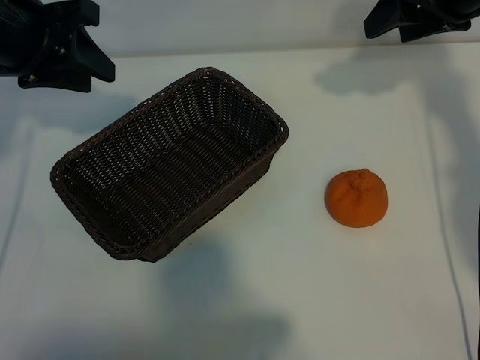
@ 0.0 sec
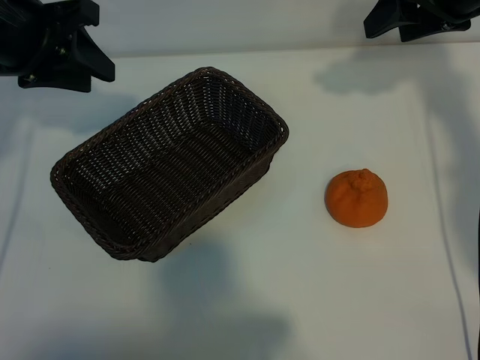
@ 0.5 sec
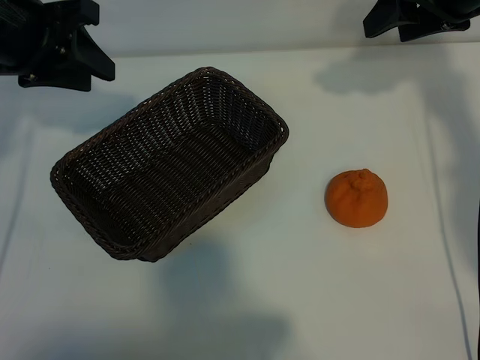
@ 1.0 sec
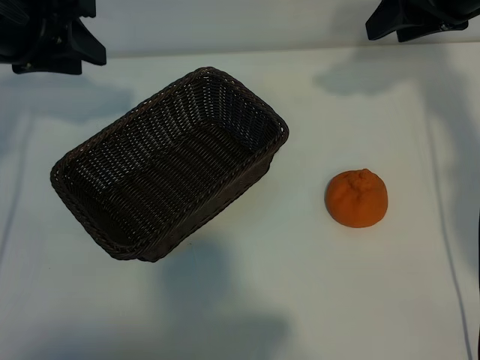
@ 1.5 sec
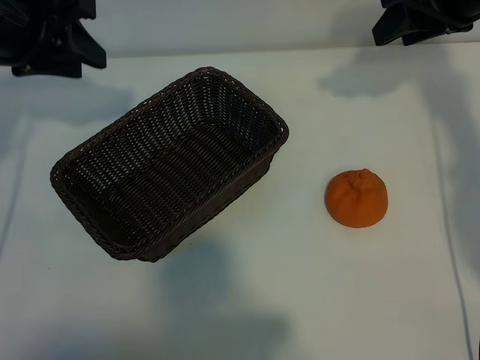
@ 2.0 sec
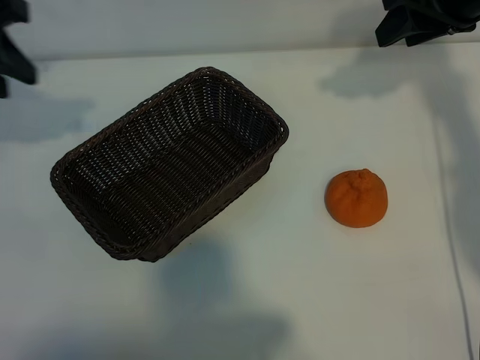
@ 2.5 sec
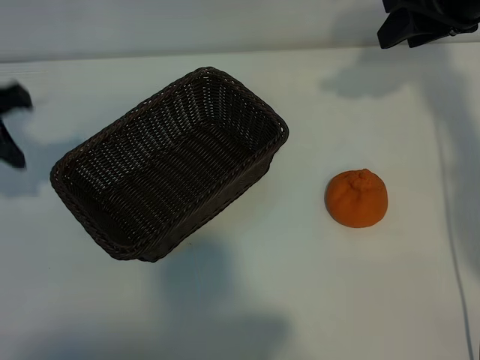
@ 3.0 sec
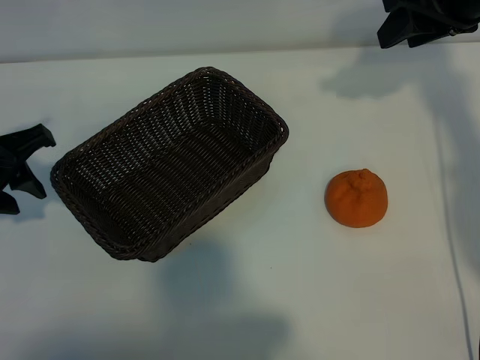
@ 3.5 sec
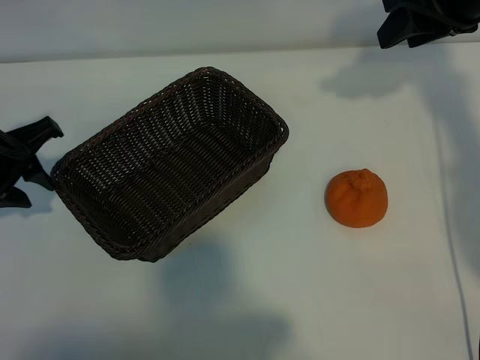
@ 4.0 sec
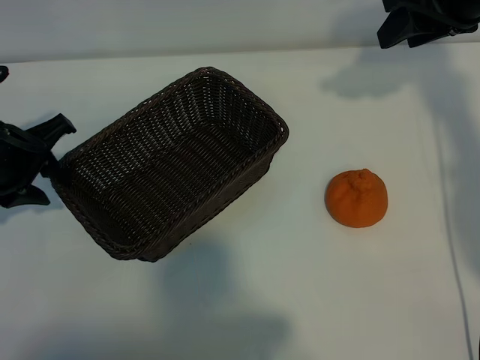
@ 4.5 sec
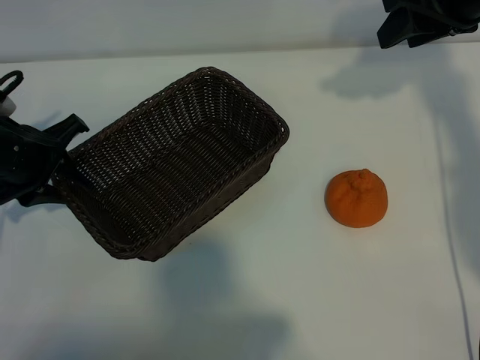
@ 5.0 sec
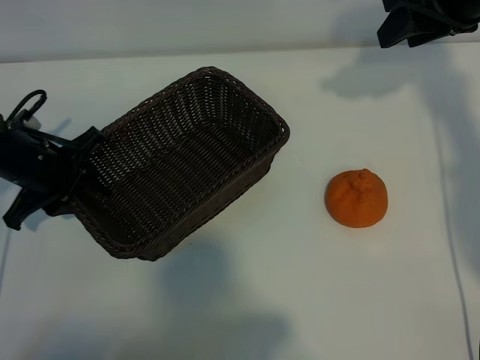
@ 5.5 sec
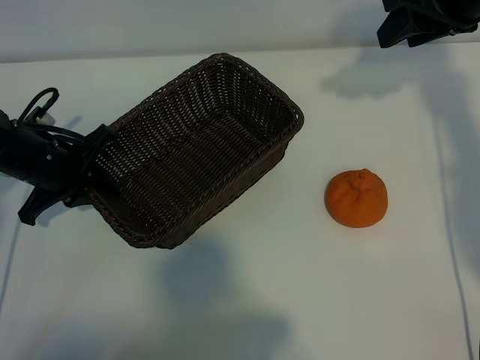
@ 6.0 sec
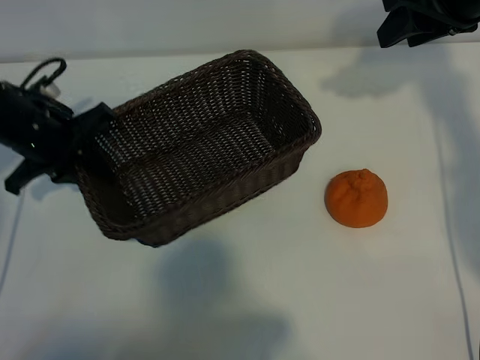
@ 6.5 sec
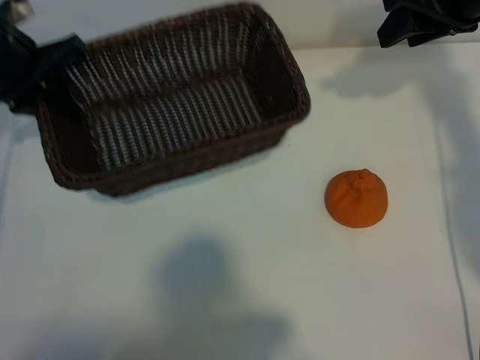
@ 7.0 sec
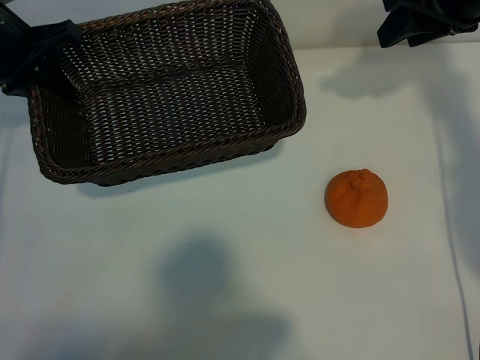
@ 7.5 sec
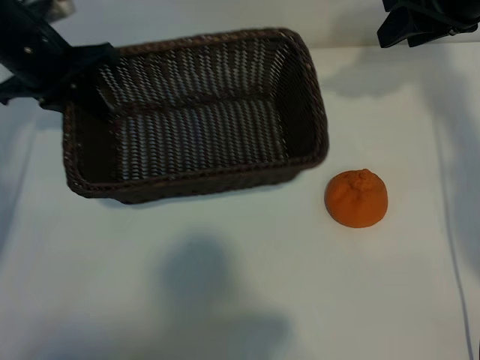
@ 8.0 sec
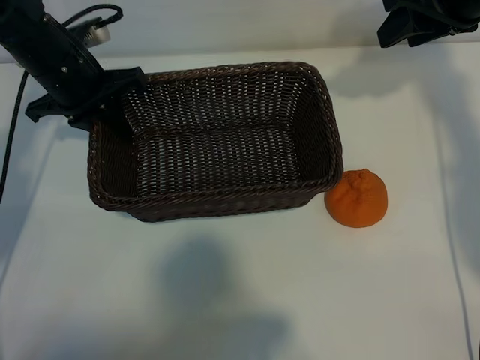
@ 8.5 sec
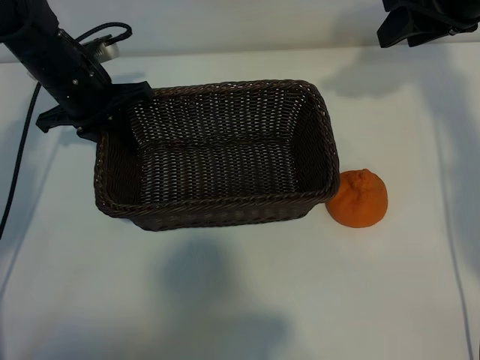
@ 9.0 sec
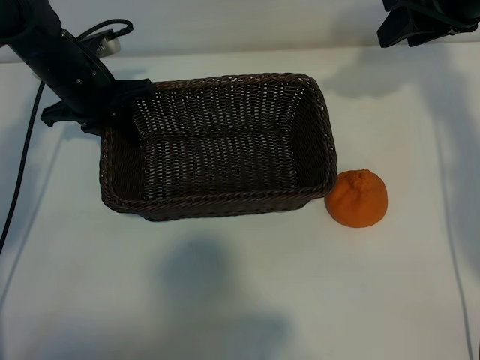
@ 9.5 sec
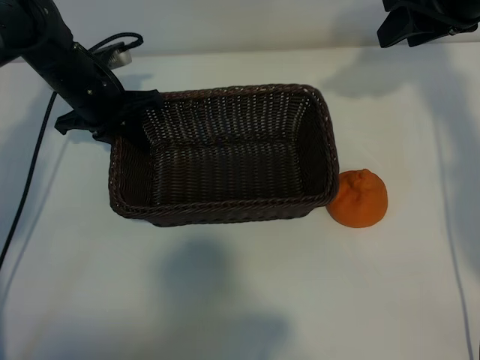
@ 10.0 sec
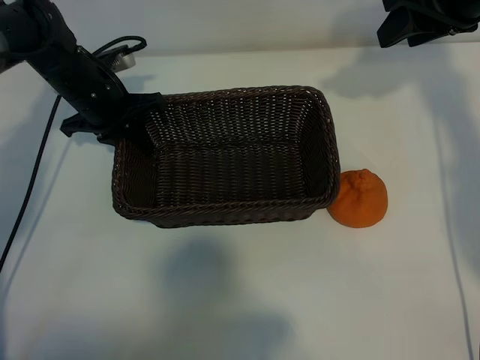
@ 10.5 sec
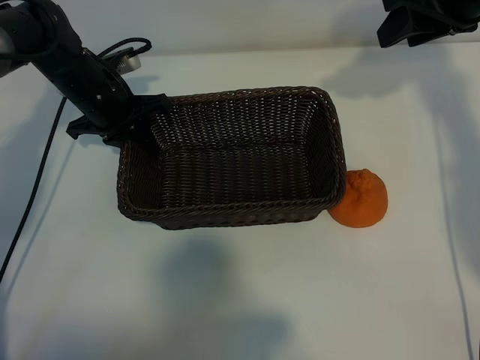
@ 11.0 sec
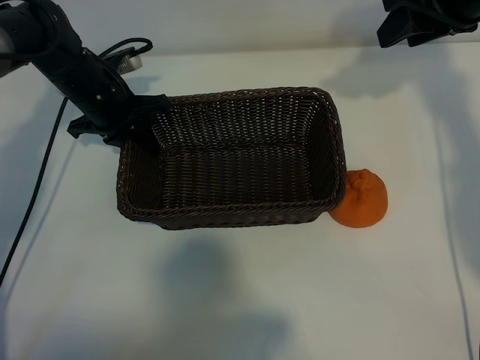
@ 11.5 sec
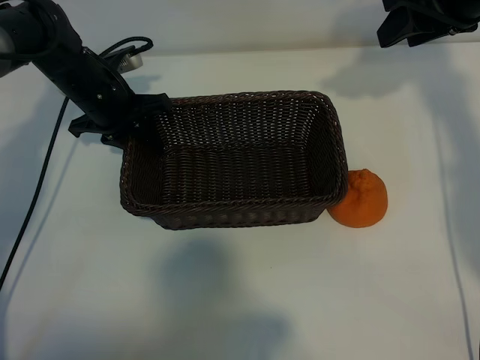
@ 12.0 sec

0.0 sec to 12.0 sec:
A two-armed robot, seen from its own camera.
Task of the whole recording: pick up the orange and put it into the basket.
Step, 1.5 sec to 5.5 sec: Grasp the basket with left gripper.
Step, 6.5 sec to 11.5 sec: Place the basket in the center of view with left gripper.

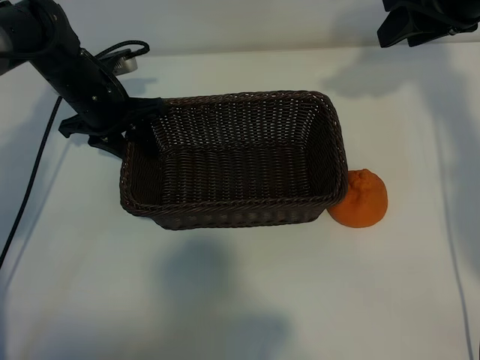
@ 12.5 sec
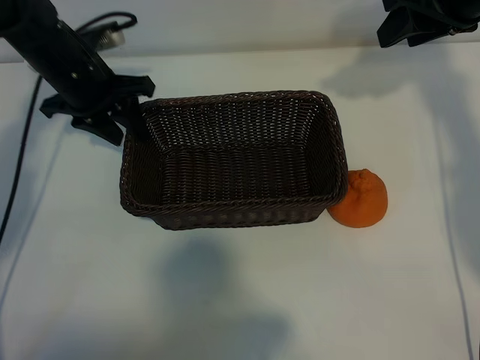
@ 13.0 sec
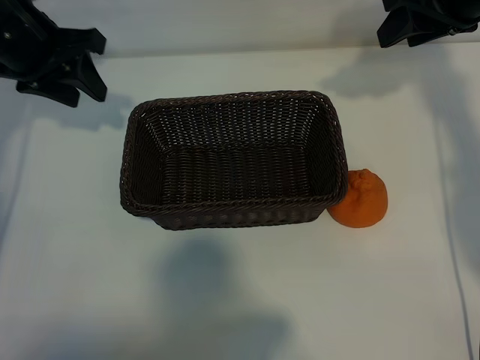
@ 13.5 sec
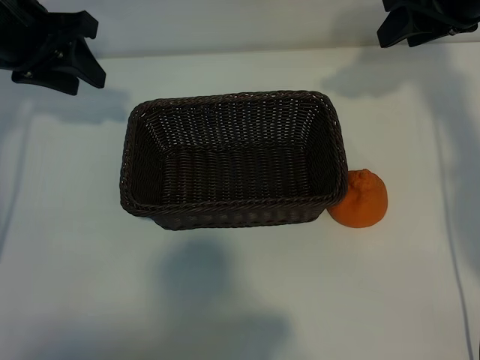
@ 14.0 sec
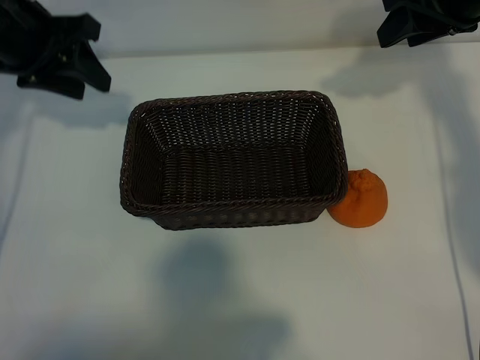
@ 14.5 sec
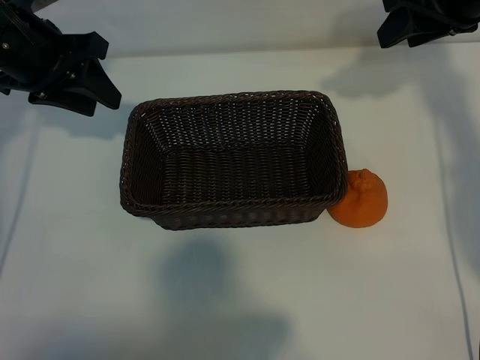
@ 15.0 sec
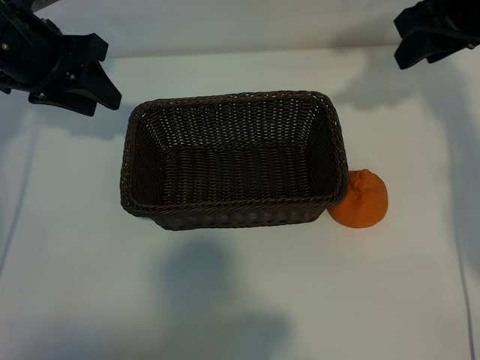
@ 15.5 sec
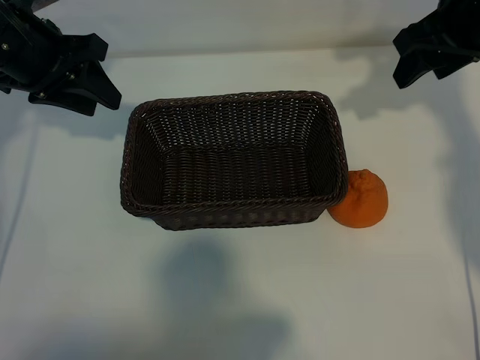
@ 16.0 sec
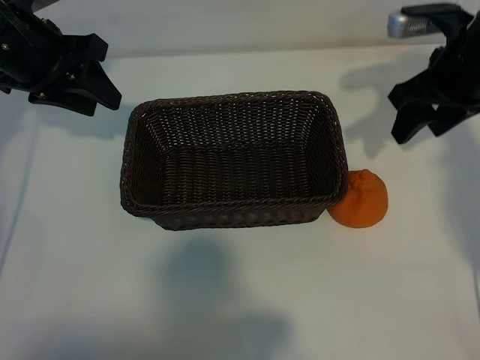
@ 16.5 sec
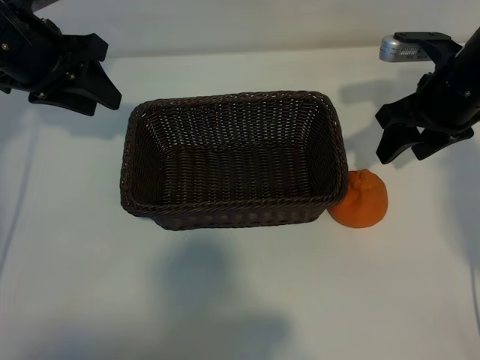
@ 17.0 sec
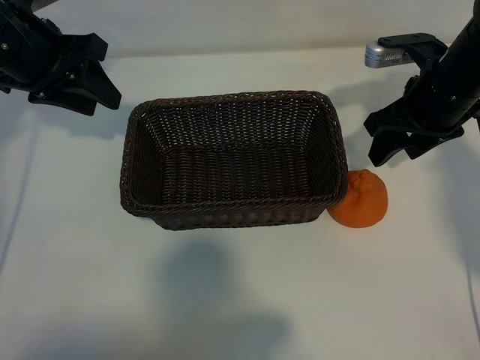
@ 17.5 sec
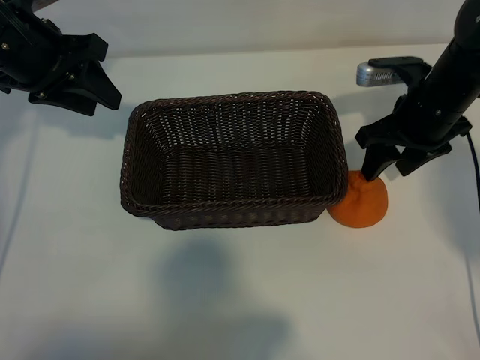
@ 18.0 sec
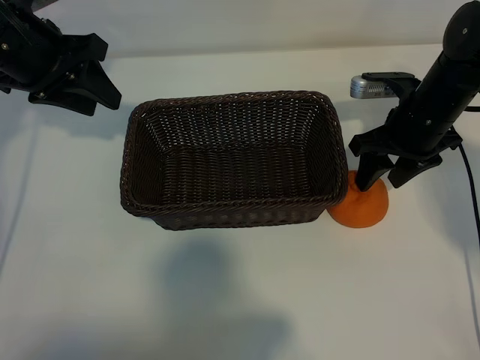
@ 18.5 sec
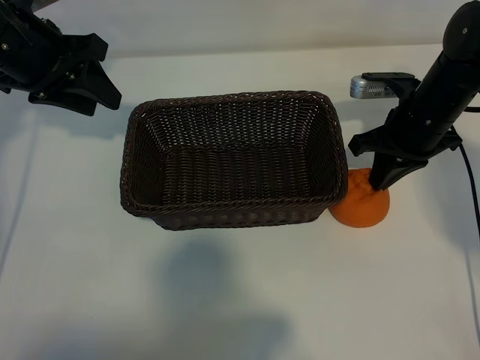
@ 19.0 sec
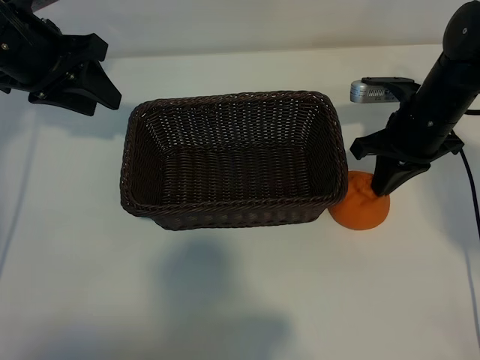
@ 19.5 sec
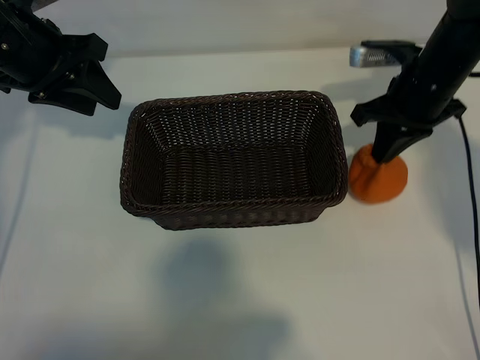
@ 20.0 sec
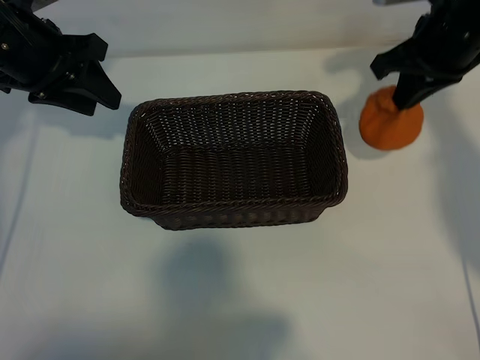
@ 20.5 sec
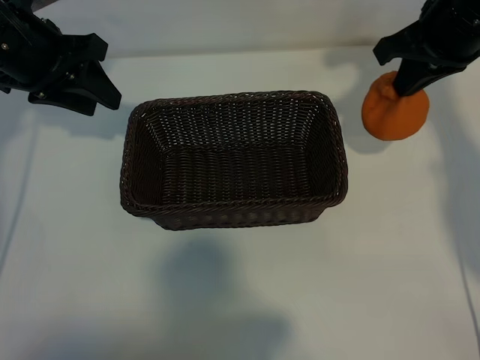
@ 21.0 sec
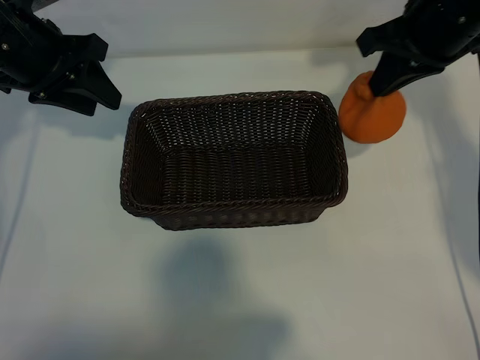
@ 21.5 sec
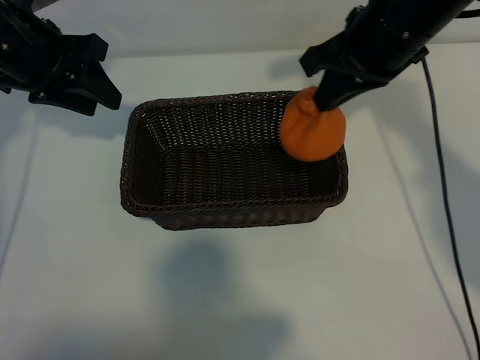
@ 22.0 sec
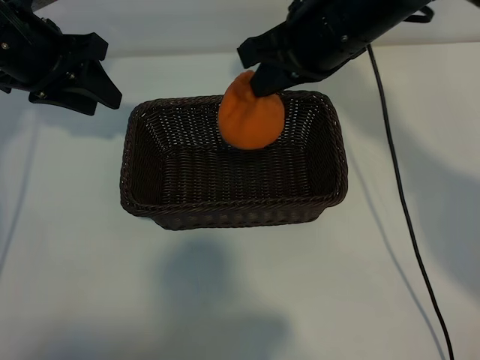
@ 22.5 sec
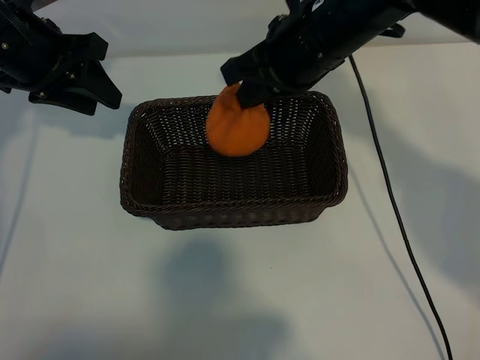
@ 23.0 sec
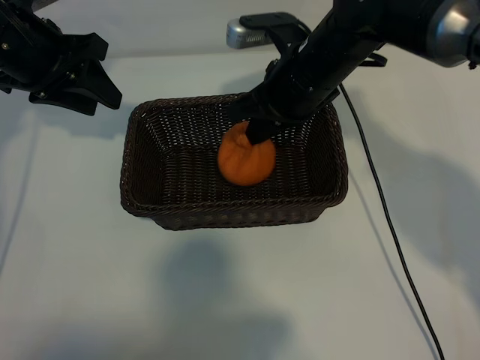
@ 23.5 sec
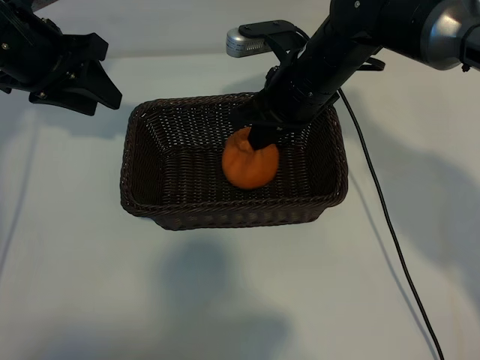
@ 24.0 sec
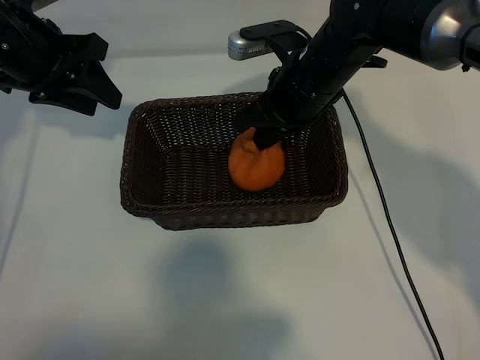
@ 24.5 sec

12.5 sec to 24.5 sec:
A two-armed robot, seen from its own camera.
Task of the whole recording: pick up the orange and put it into the basket.
Step, 12.5 sec to 18.5 sec: Grasp the orange with right gripper.
